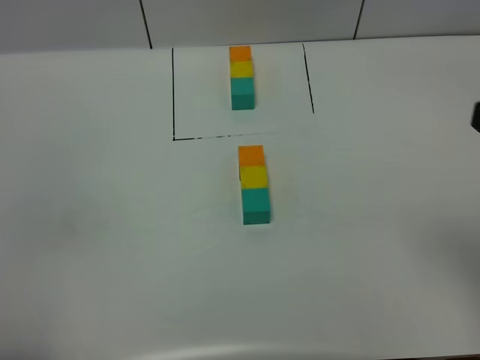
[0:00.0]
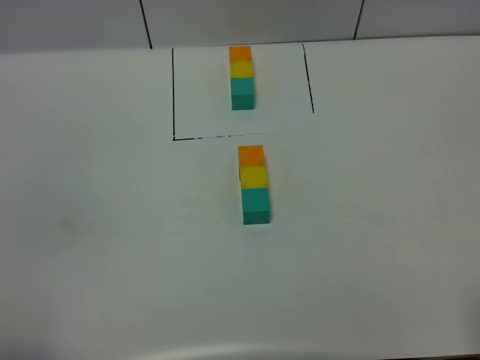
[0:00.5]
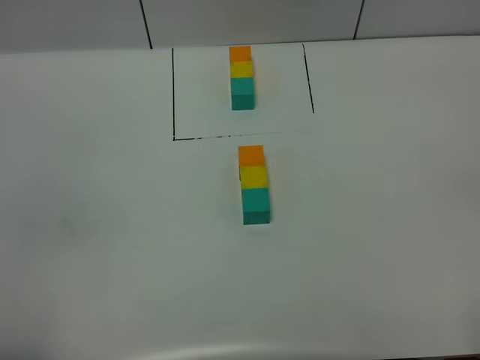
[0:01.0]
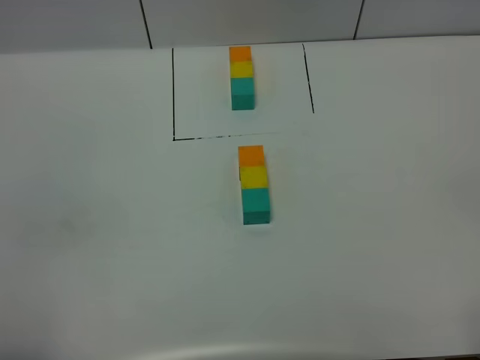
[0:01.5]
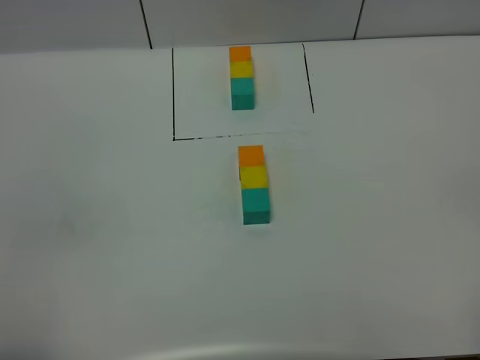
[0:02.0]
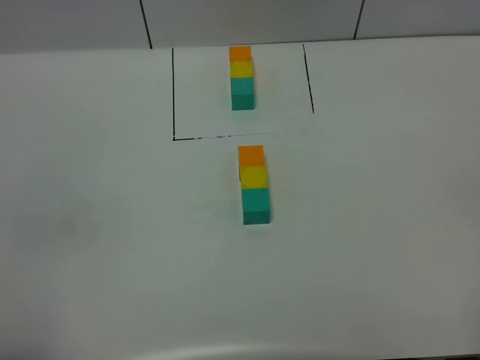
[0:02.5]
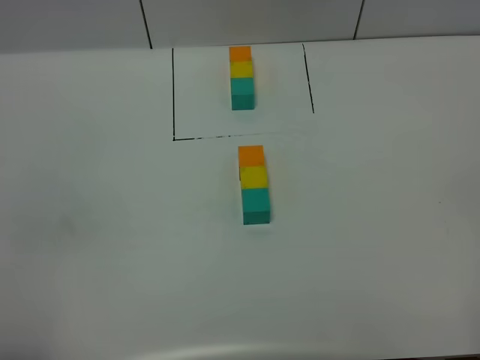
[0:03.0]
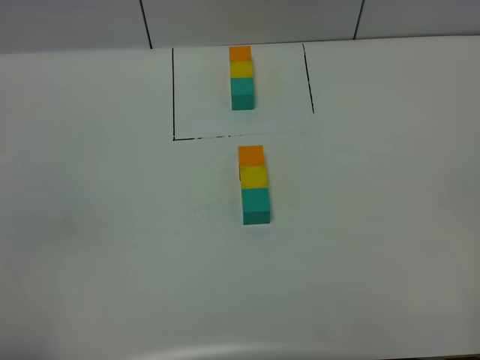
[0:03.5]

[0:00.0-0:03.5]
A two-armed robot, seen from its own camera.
Task of the whole recording: According to the building block template in front, assemble the scattered blocks together.
0:02.0 to 0:03.5: Both grippers stay put.

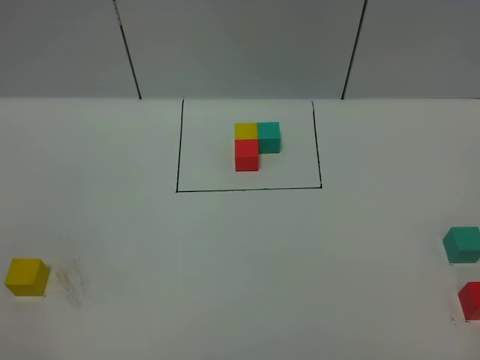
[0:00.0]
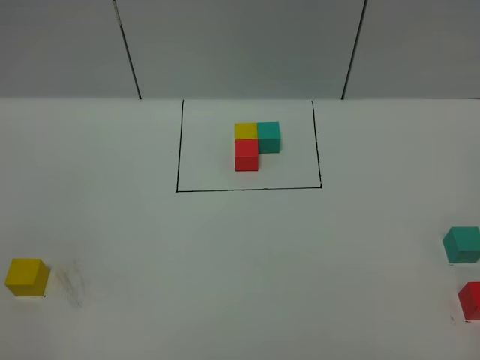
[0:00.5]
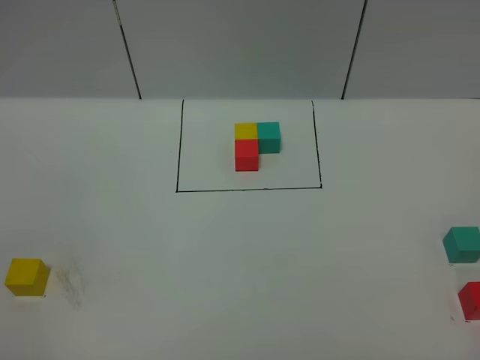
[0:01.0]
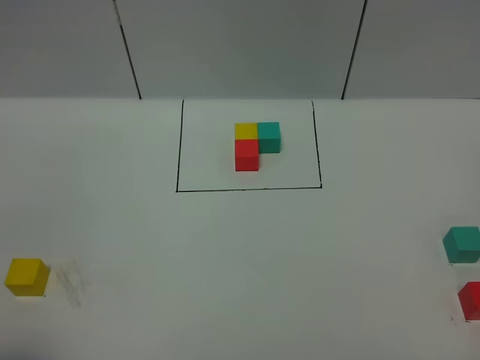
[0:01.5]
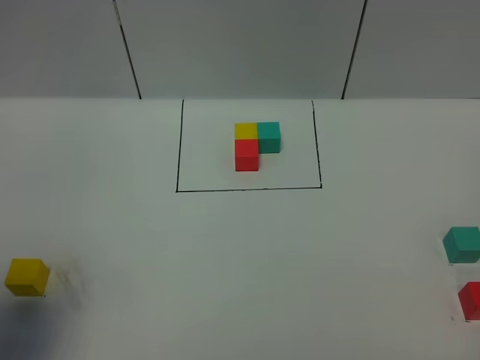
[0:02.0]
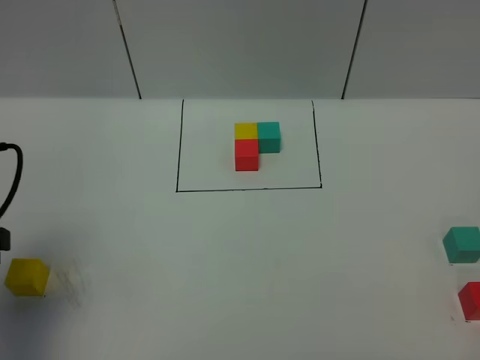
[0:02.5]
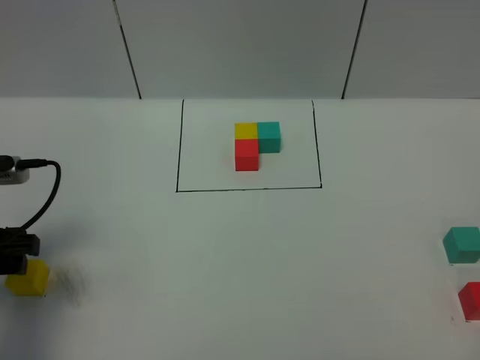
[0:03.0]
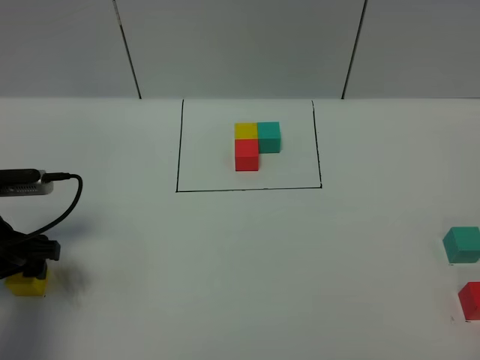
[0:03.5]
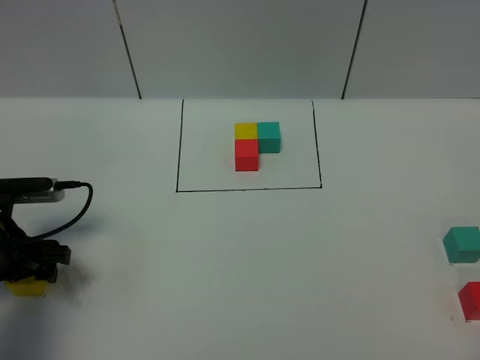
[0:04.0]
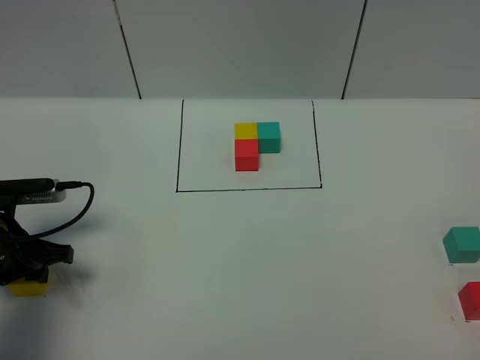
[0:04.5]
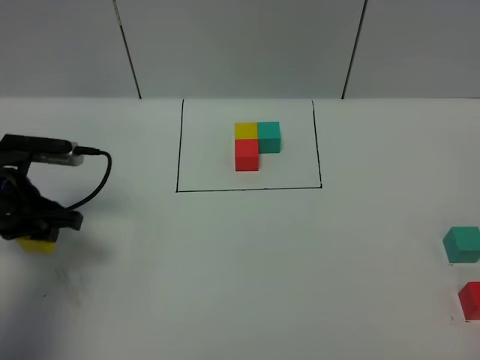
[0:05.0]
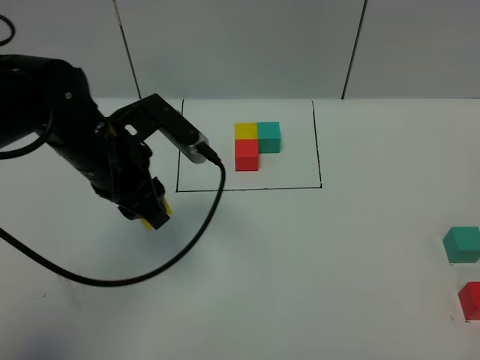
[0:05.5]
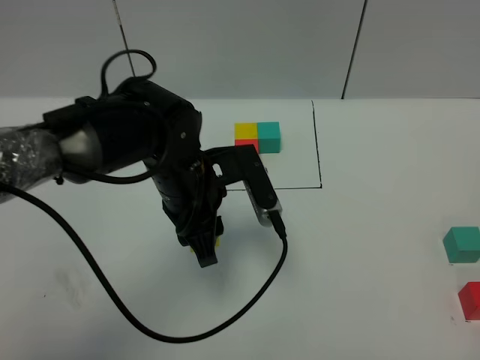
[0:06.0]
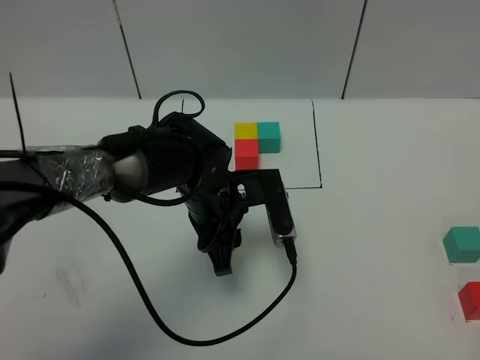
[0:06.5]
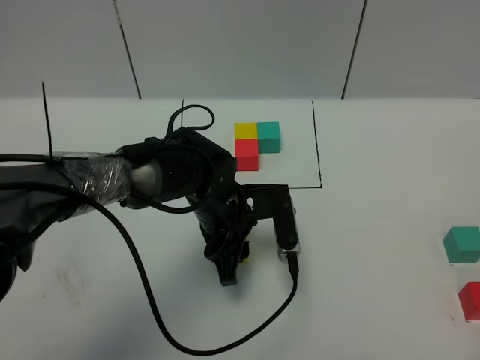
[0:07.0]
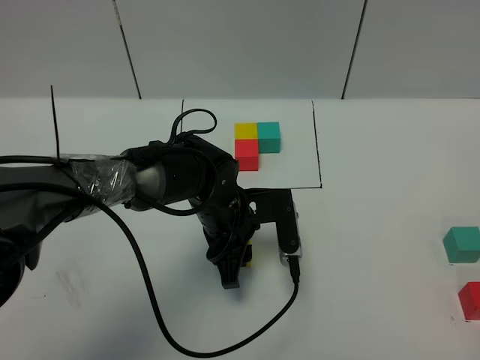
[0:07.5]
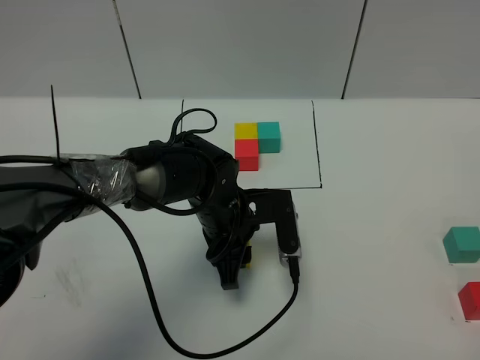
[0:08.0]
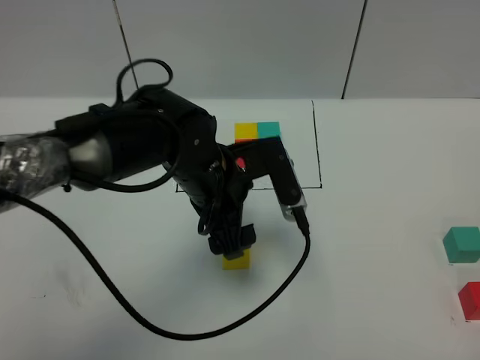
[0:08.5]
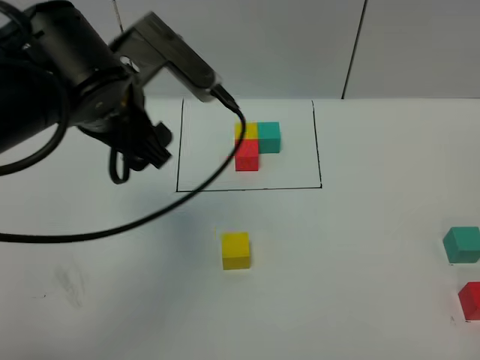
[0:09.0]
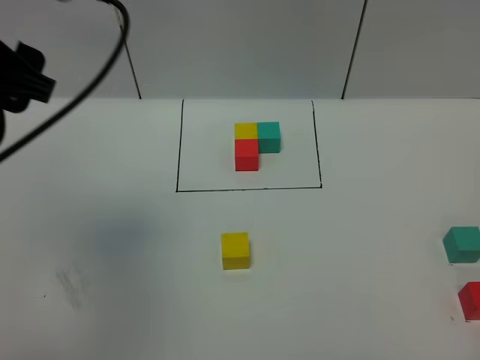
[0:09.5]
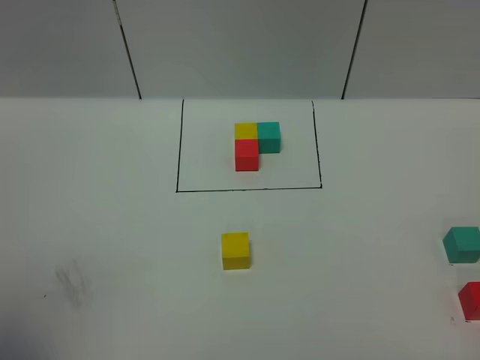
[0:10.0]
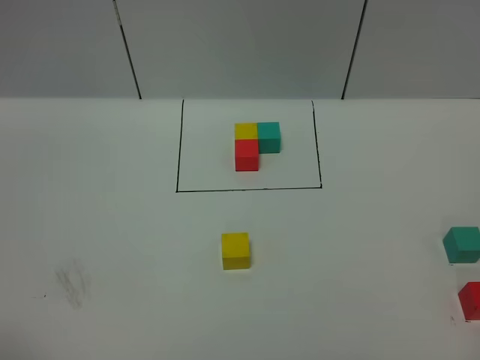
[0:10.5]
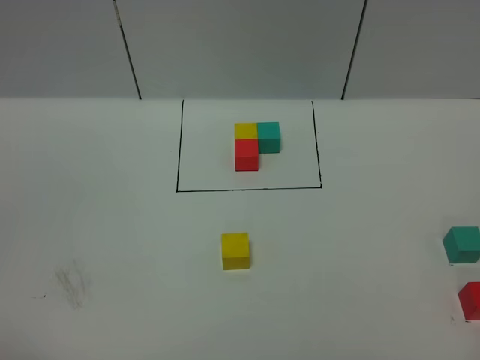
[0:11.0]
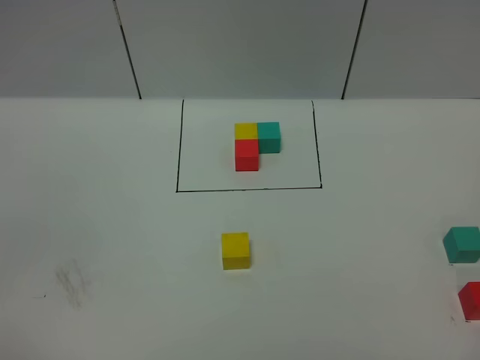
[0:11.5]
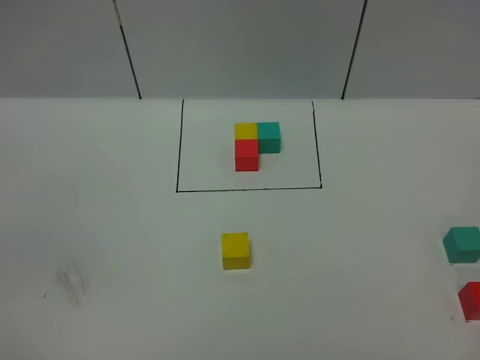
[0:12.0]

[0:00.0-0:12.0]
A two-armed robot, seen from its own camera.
Task of the whole recording: According to the building block template in front, assemble the scattered blocks together.
Step, 0:02.5 to 0:08.5: Put the yellow cube in the center of the table.
0:00.0 to 0:02.0: The left gripper is displaced forward by some 15 cm.
0:02.0 to 0:04.0: The left gripper travels downward and forward by approximately 20 cm.
0:04.0 to 0:06.0: The left gripper is displaced to the right by approximately 25 cm, and closes its fingers.
0:06.0 to 0:08.0: The left gripper heads downward, covering approximately 10 cm.
0:08.0 to 0:10.0: The left gripper moves upward, to the left and backward, some 50 cm, and opens.
0:10.0 to 0:12.0: The left gripper goes some 25 cm downward and backward.

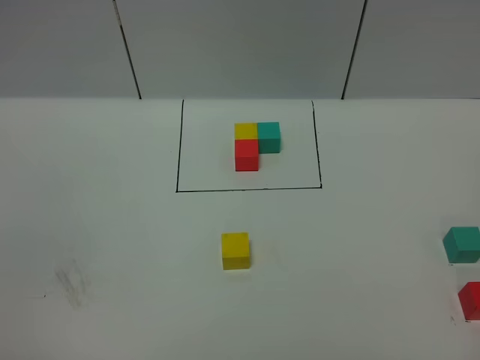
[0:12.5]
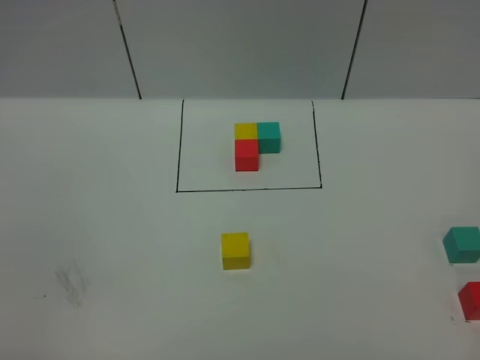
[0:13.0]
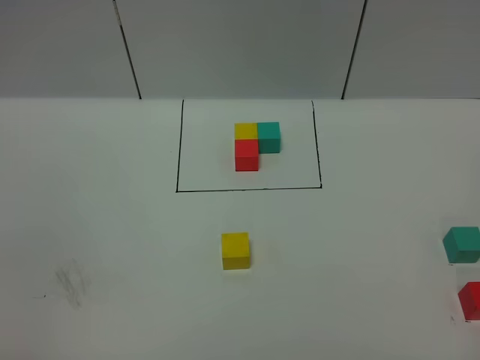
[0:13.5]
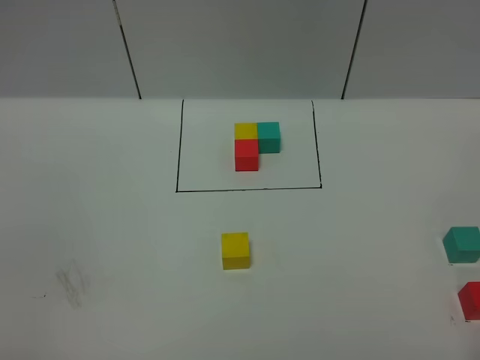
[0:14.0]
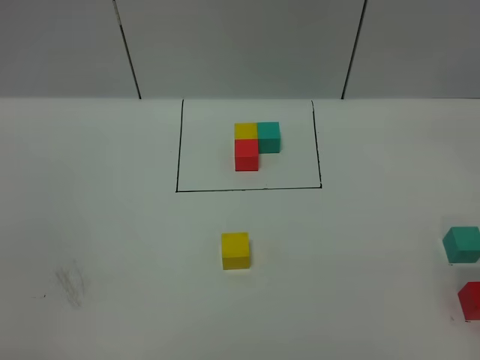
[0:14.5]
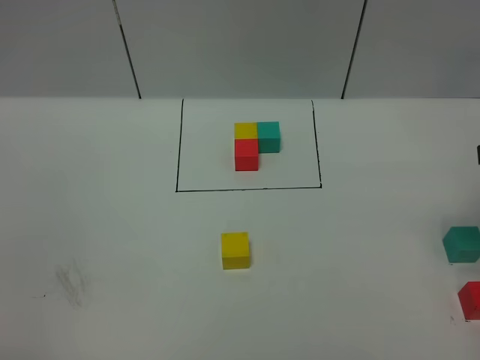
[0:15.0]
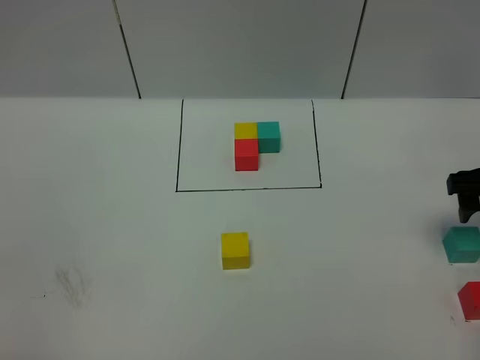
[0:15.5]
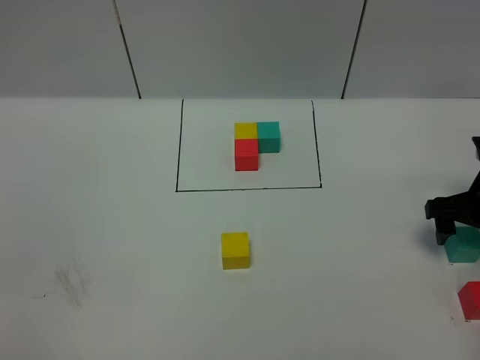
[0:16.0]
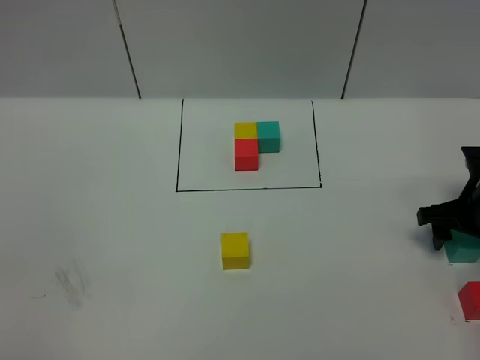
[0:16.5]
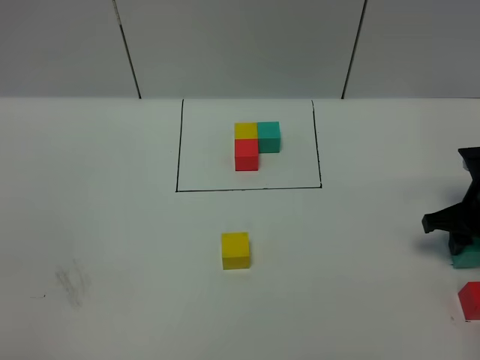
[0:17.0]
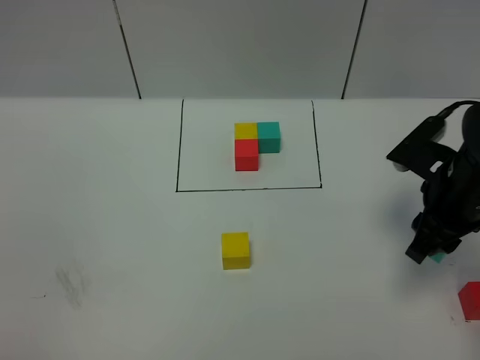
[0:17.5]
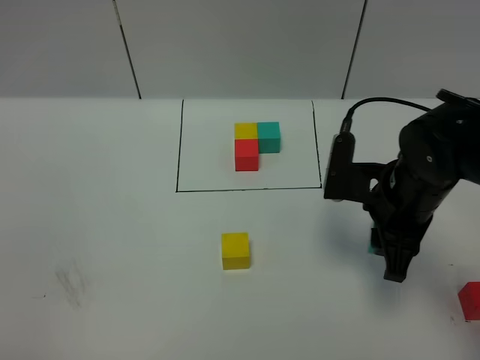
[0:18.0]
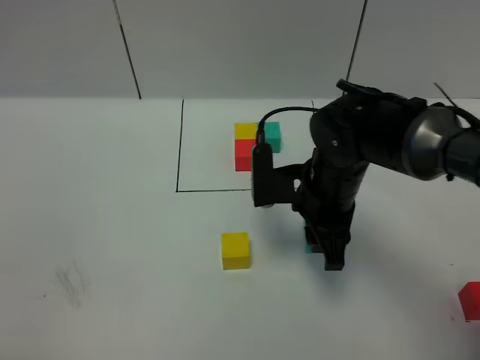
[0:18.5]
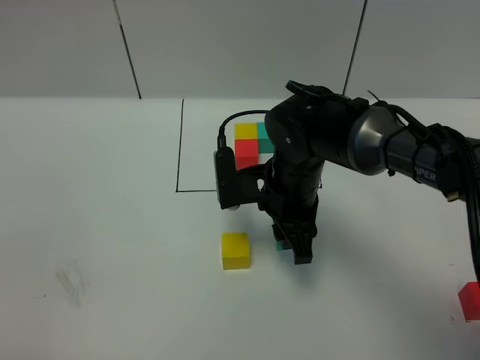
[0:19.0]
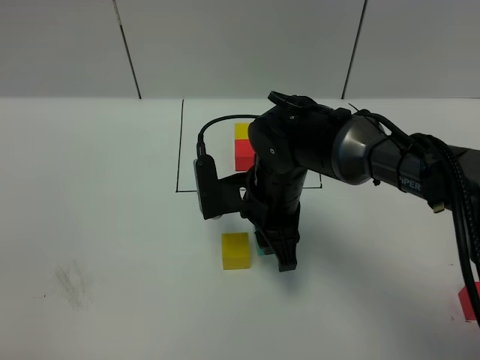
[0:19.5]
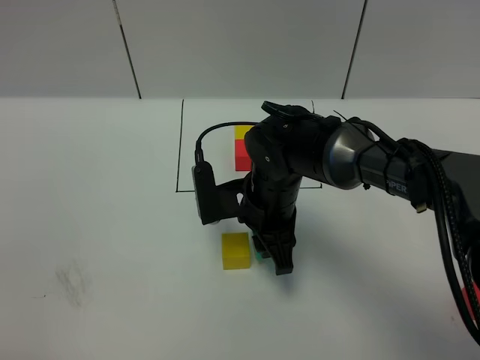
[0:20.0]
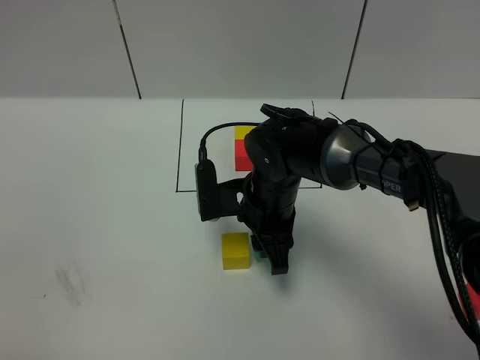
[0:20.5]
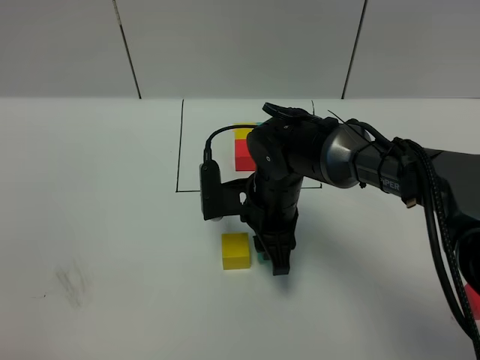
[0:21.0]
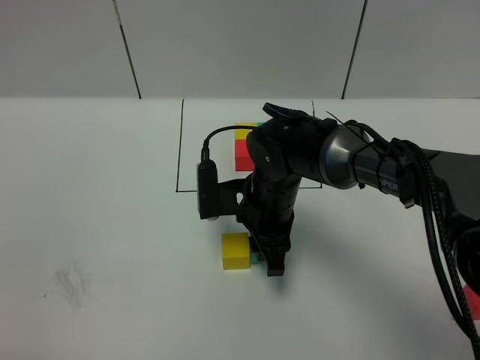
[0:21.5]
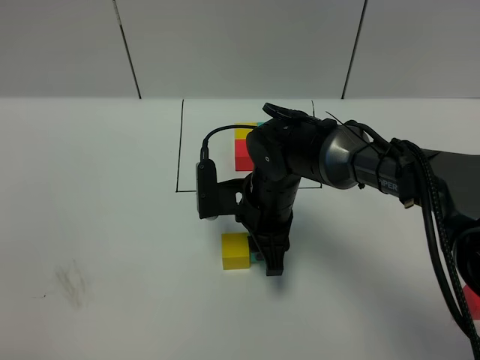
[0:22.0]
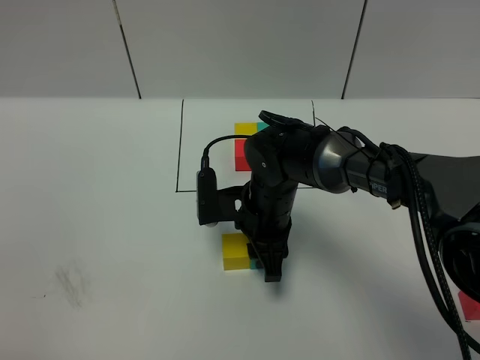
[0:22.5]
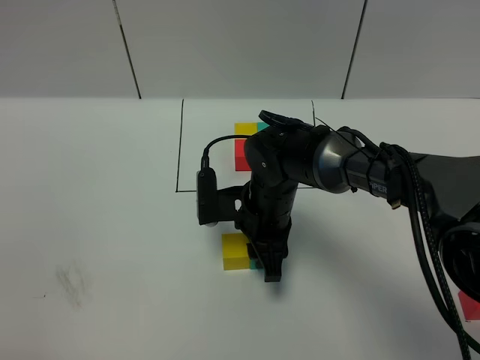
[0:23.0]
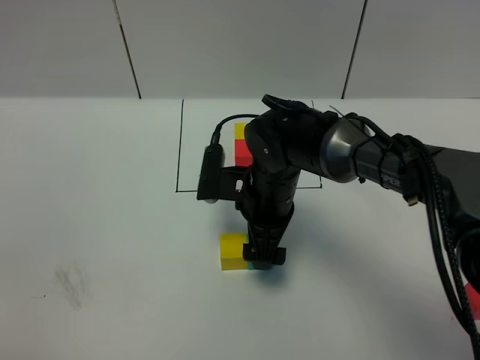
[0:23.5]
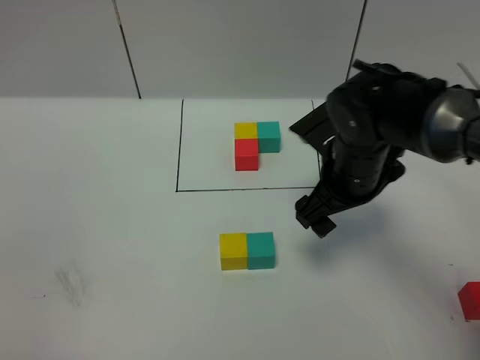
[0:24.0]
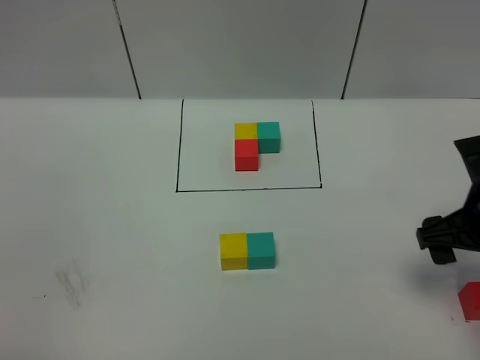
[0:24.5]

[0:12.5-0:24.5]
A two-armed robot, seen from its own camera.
Task of the whole recording: According to the building block template in front, assemble the scattered blocks together.
Step, 0:12.5 to 0:23.5: Put the green cube on the right of the yellow cube.
0:14.5 to 0:16.5: The right gripper is displaced downward and forward by roughly 25 cm.
0:16.5 to 0:18.5: The right gripper moves to the left, some 20 cm, and closes its fingers.
0:18.5 to 0:20.5: The right gripper heads to the left, covering about 5 cm.
0:20.5 to 0:22.5: The grippers make only small movements.
0:22.5 to 0:24.5: The right gripper goes some 25 cm to the right, and opens its fingers.
